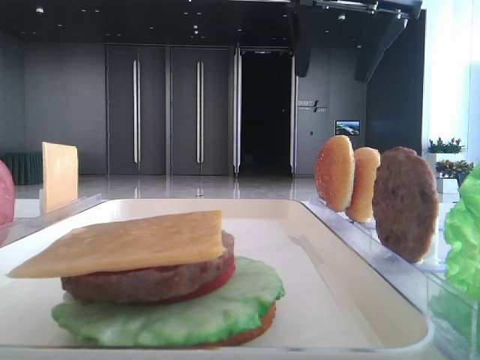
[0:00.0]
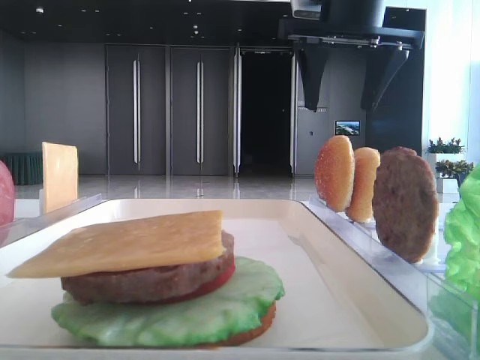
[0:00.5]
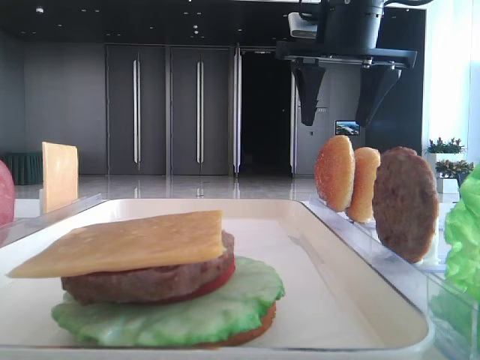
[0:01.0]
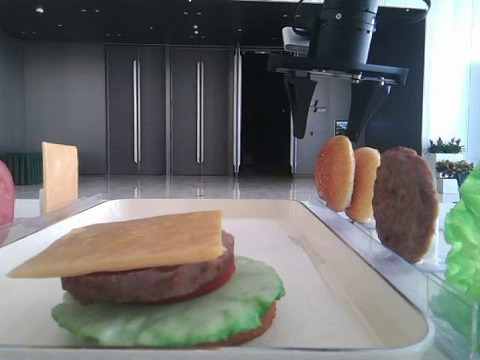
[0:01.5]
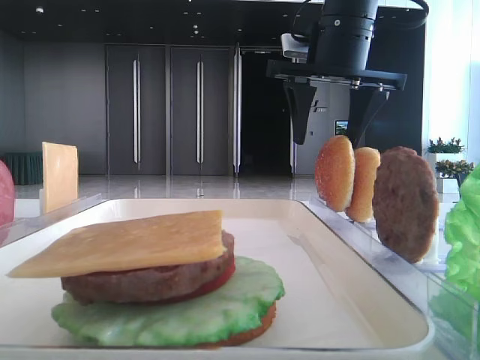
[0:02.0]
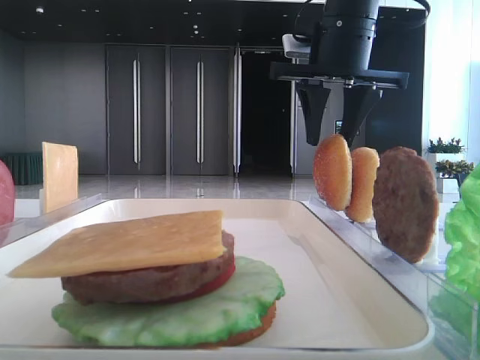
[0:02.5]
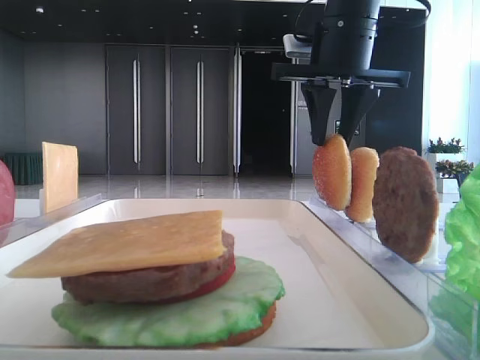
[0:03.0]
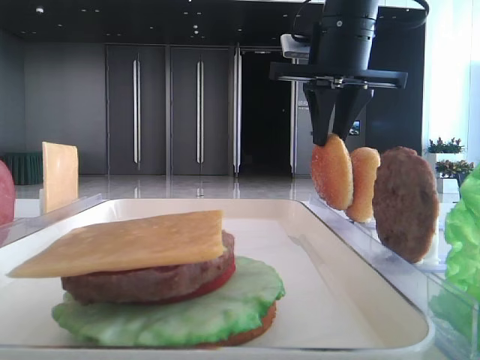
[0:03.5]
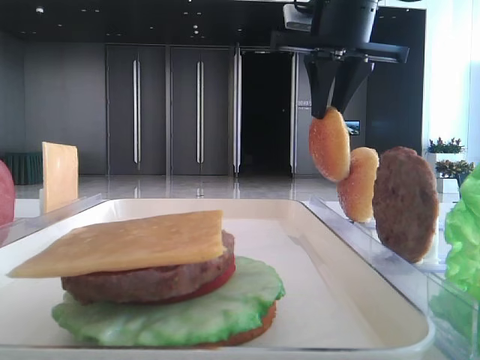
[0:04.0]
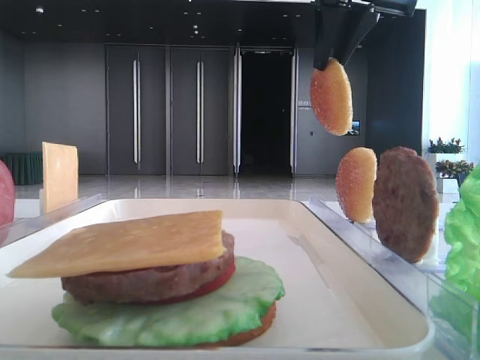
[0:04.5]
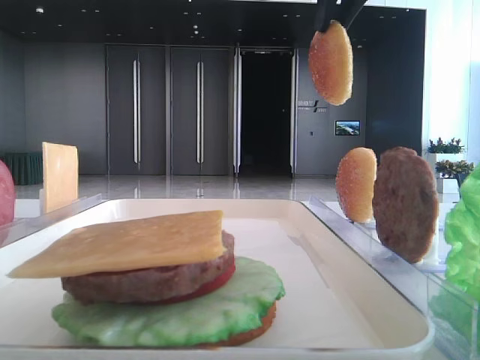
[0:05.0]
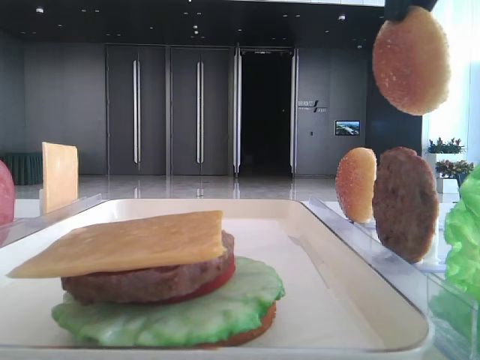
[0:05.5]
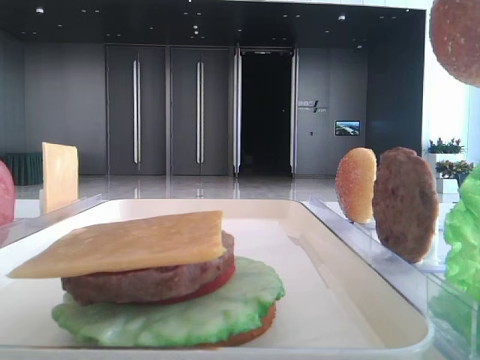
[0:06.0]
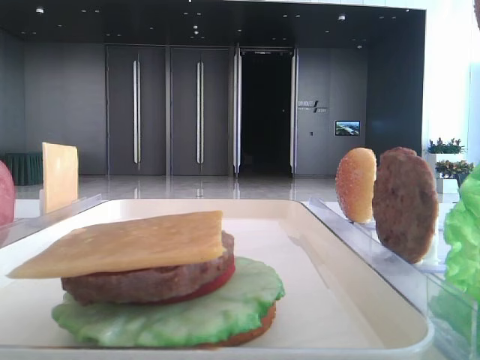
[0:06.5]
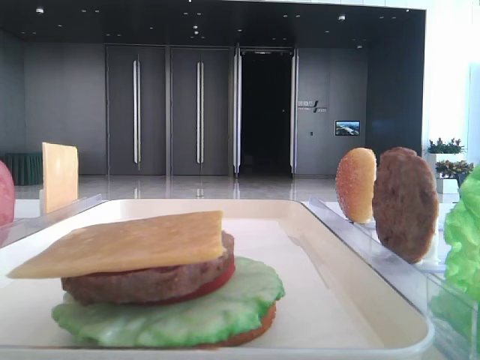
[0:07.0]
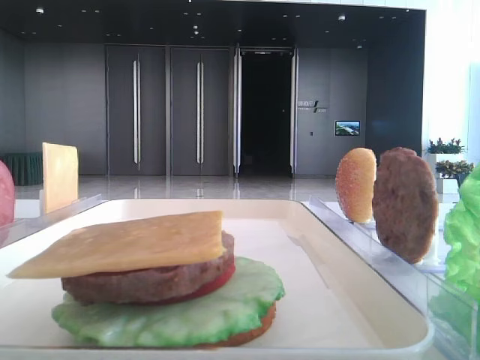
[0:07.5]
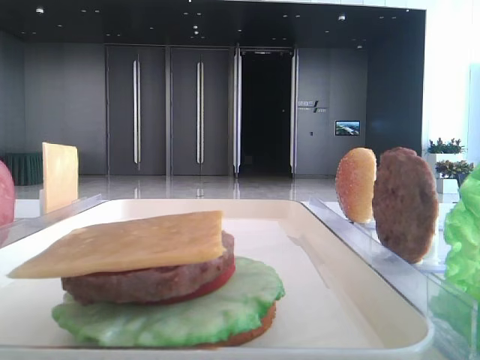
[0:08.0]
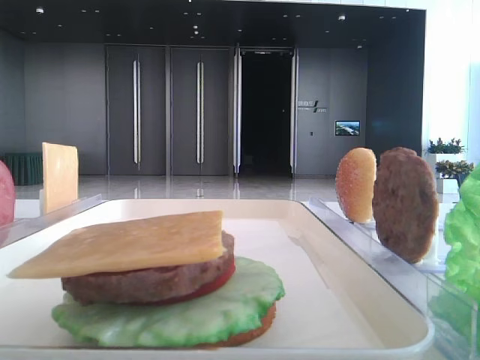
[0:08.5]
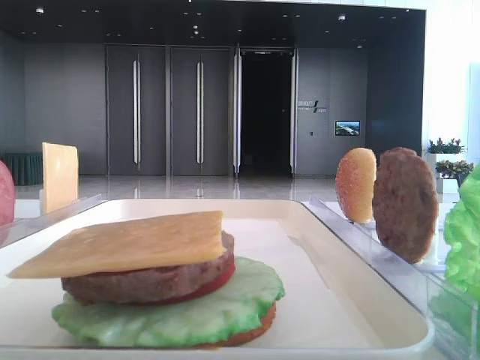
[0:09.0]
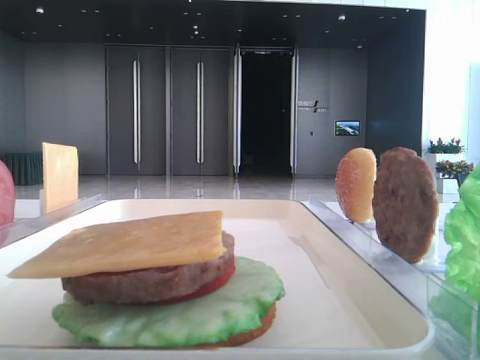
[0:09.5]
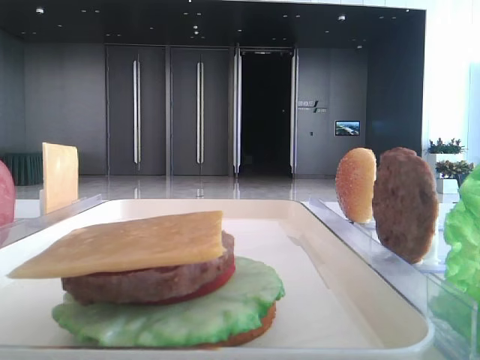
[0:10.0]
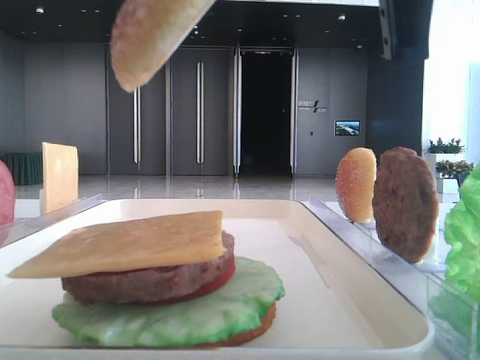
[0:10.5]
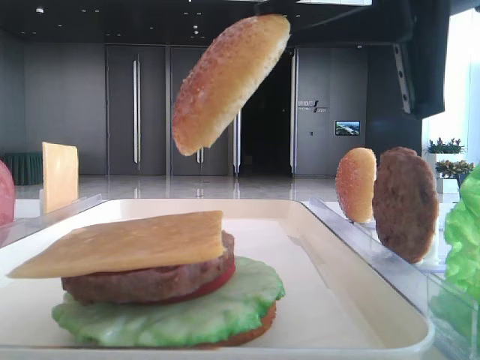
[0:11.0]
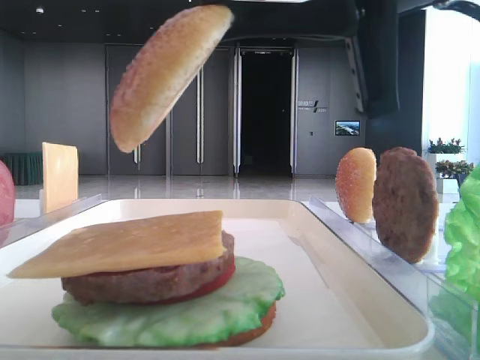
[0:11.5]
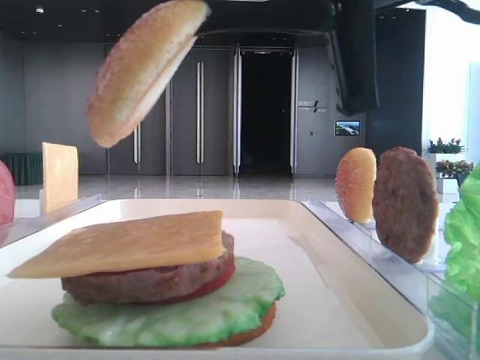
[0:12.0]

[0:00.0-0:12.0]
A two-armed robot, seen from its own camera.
Step, 0:00.0 to 0:03.0: Pick up the top bread slice with the right hand.
0:00.0 to 0:02.0: The right gripper is displaced downward by approximately 5 cm.
0:02.0 to 0:04.0: The right gripper closes.
0:04.0 to 0:06.0: The right gripper travels backward and upward by approximately 20 cm.
0:06.0 to 0:08.0: The right gripper goes approximately 5 cm backward.
0:10.0 to 0:12.0: The right gripper travels downward and forward by some 10 cm.

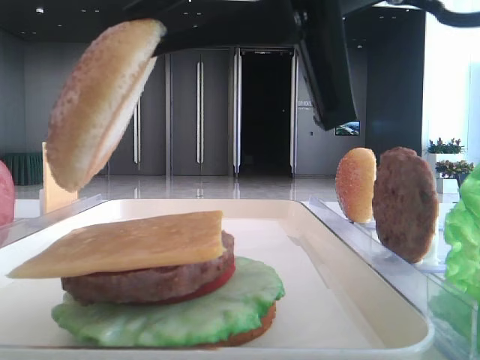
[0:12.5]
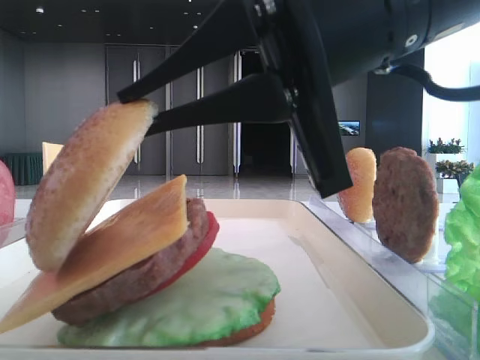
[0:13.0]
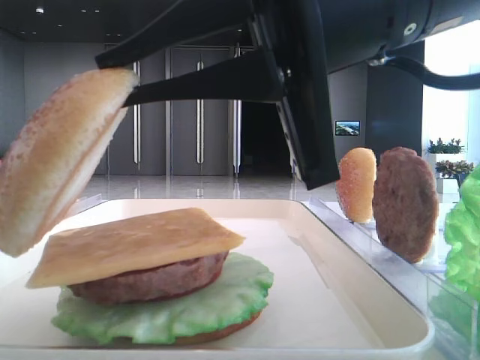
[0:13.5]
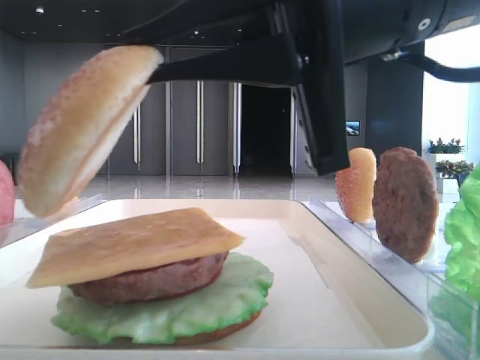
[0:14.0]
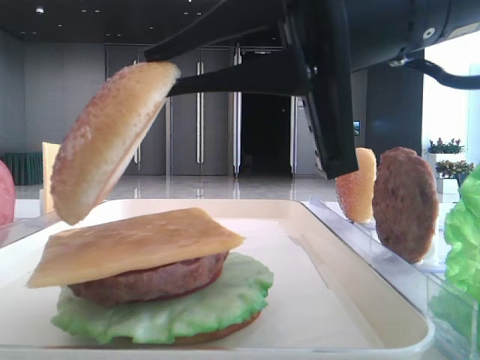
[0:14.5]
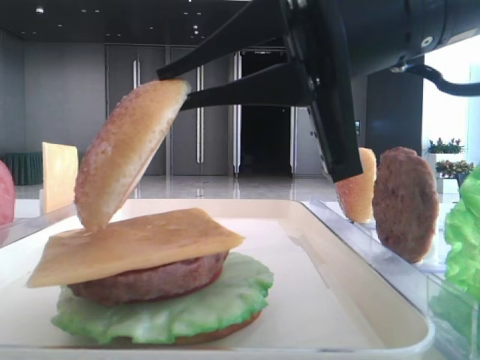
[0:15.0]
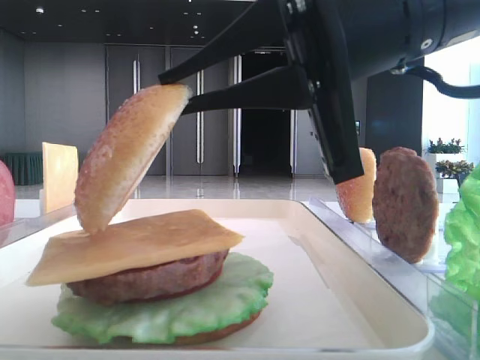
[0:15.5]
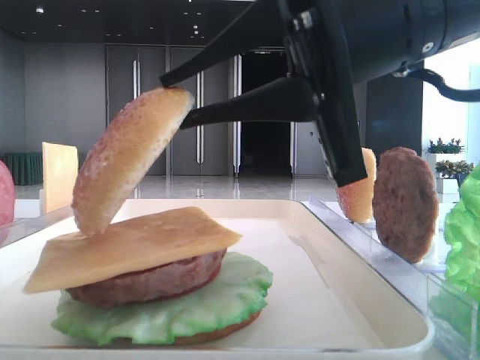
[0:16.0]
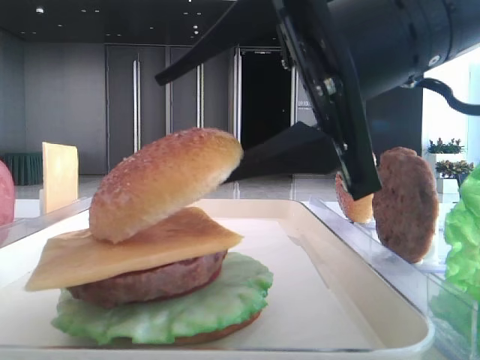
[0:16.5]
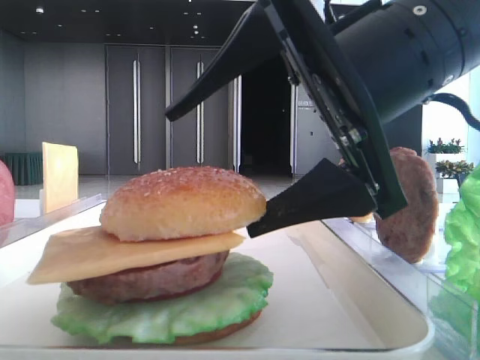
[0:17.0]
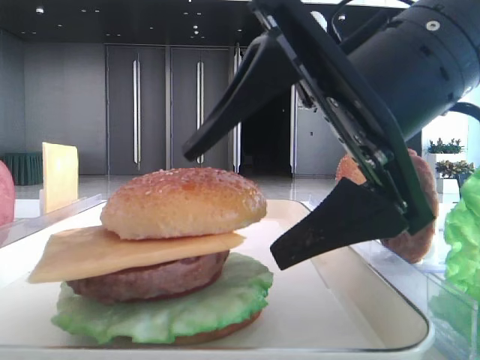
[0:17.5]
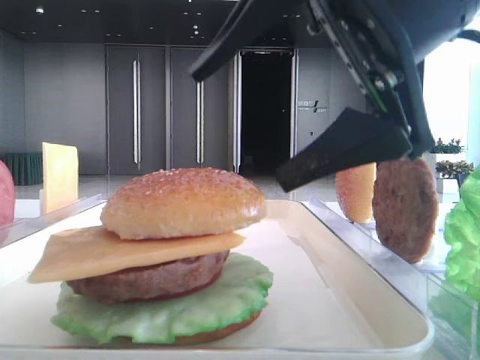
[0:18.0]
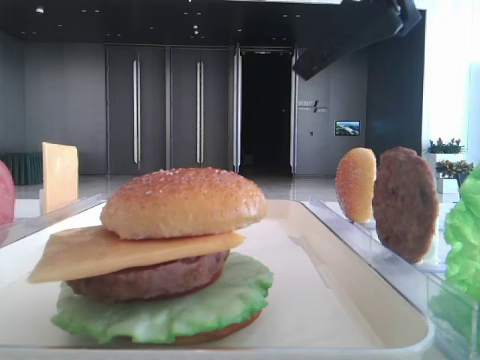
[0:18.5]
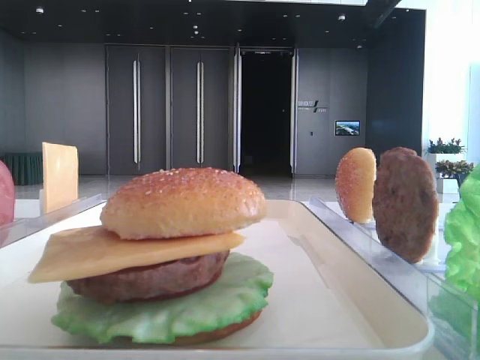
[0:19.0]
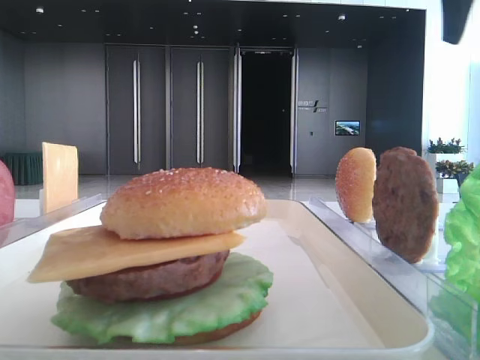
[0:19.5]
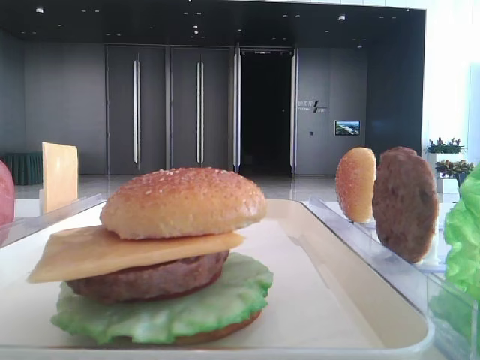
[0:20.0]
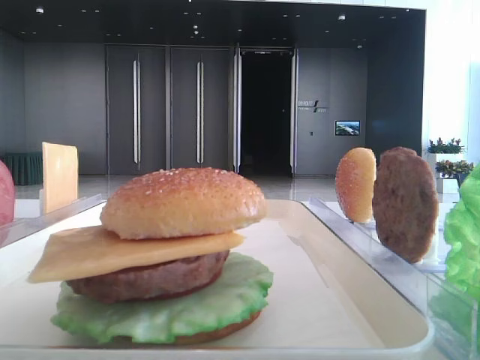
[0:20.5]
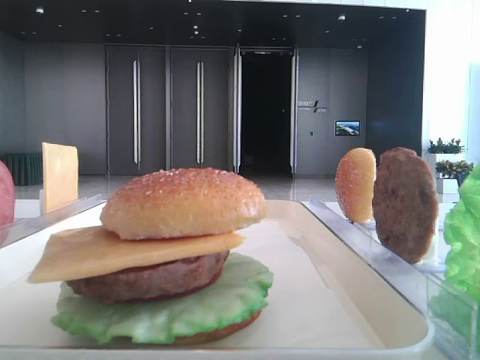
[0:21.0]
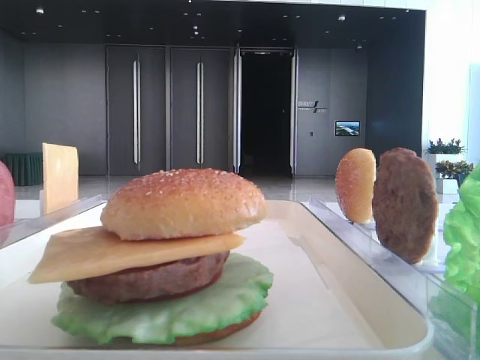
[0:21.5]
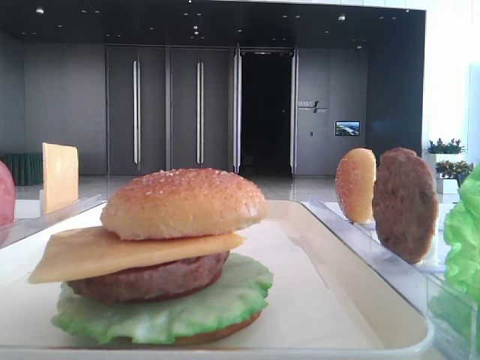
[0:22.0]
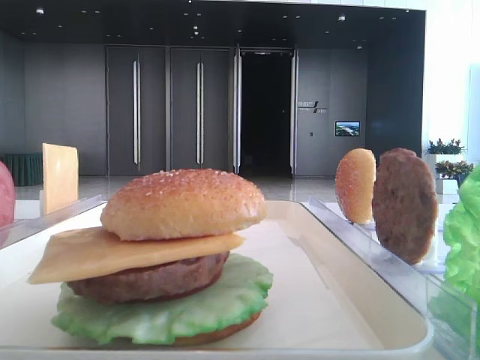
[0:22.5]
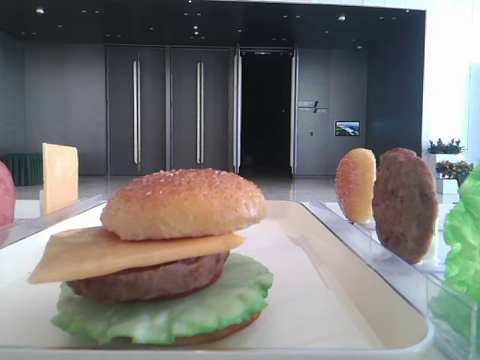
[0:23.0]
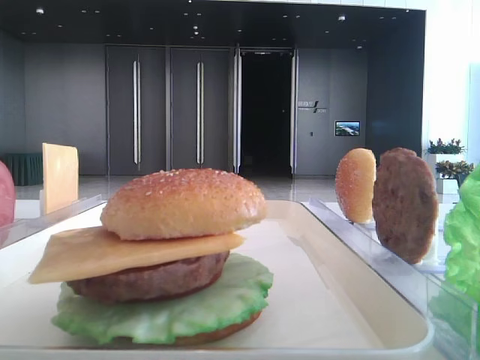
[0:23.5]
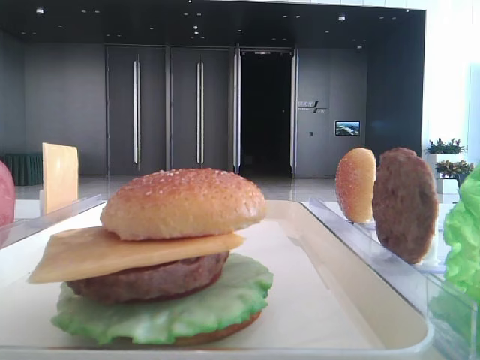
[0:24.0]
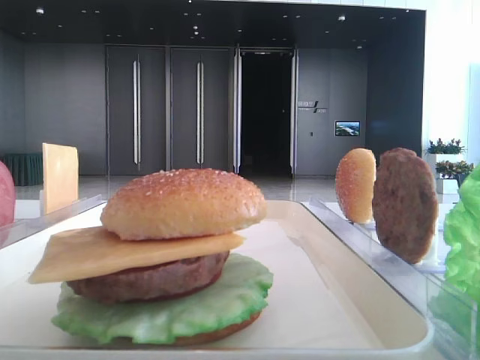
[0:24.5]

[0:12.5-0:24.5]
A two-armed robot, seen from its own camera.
Step, 0:12.5 to 0:17.0: Place the top bread slice on the cheese with the right hand.
0:12.5 to 0:14.5: There are only small adjustments of the grippers.
0:14.5 to 0:16.5: The right gripper opens its fingers.
0:16.5 to 0:18.5: The right gripper shifts some 10 cm upward.
0:18.5 to 0:20.5: The right gripper is displaced to the right by approximately 25 cm.
0:20.5 to 0:22.5: The right gripper is displaced backward by roughly 35 cm.

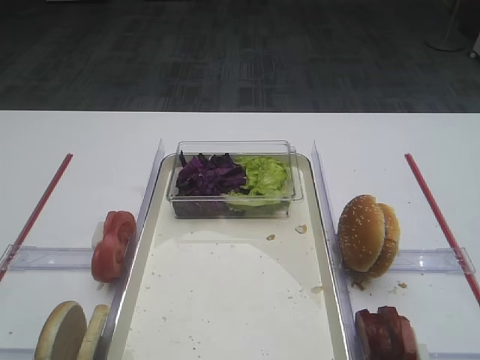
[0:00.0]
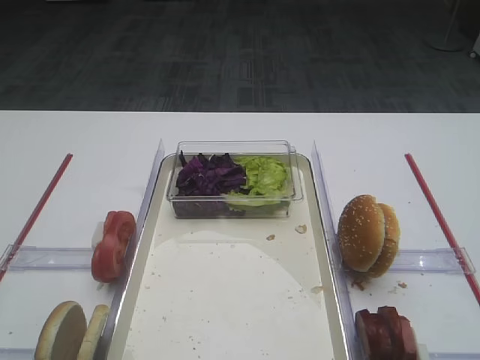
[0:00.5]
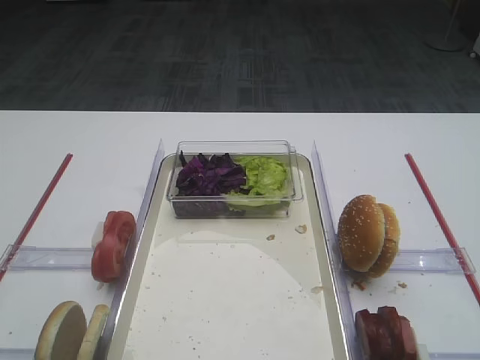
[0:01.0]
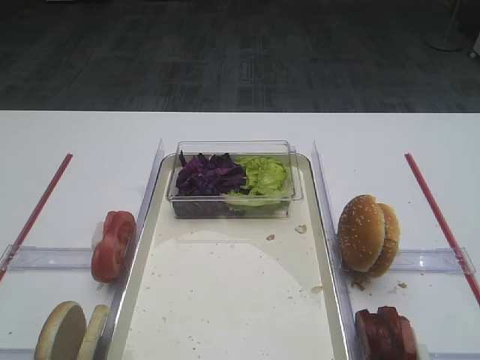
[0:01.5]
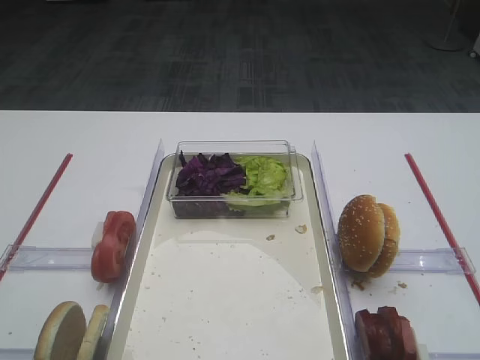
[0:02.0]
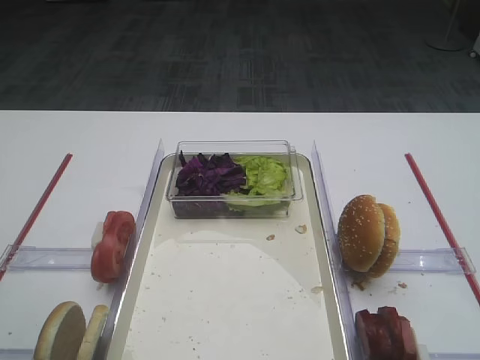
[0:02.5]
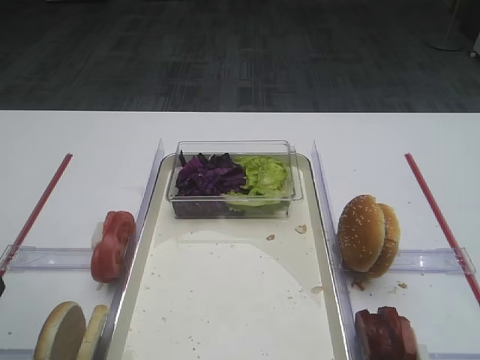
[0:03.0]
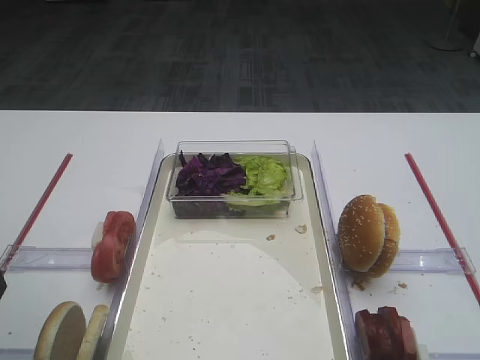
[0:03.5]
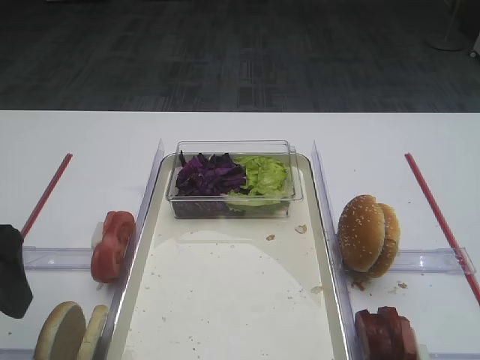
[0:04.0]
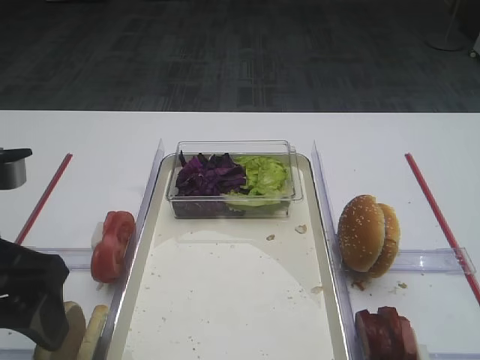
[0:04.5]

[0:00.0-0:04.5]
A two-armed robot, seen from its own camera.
0:02.0 to 0:04.5: The left gripper goes approximately 15 cm forward, to the right and downward.
